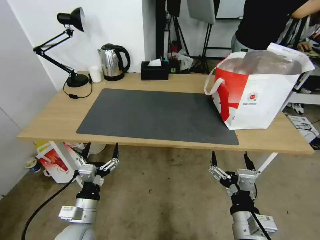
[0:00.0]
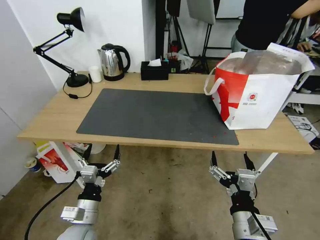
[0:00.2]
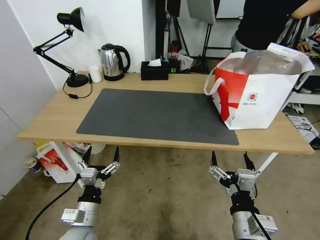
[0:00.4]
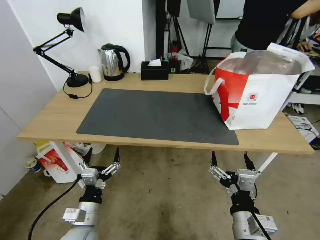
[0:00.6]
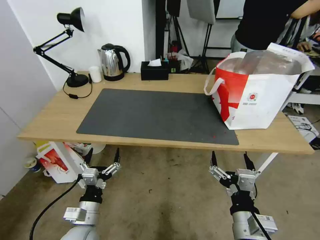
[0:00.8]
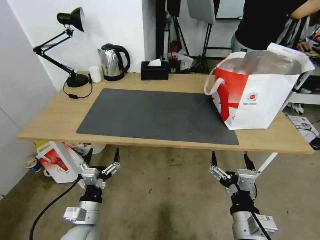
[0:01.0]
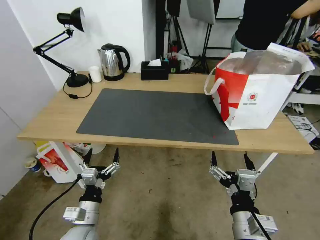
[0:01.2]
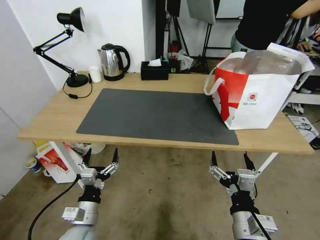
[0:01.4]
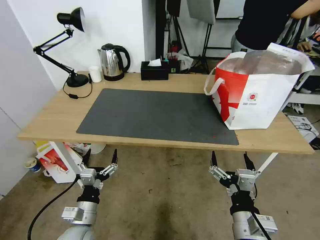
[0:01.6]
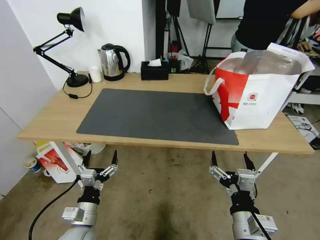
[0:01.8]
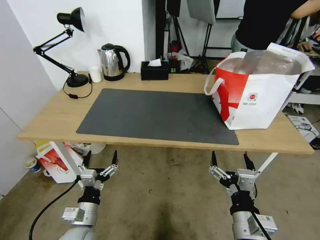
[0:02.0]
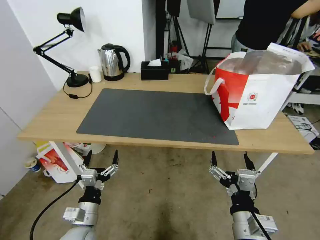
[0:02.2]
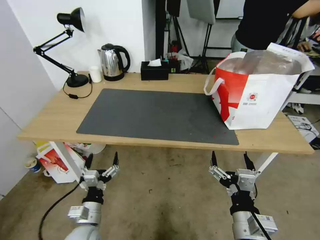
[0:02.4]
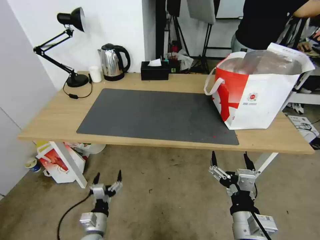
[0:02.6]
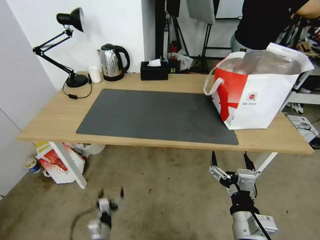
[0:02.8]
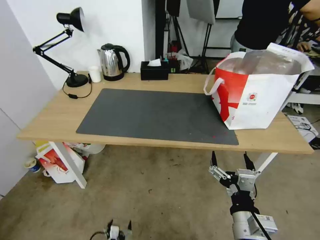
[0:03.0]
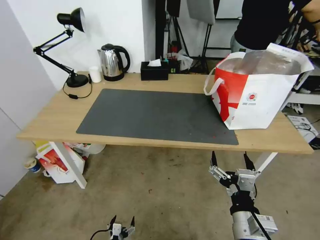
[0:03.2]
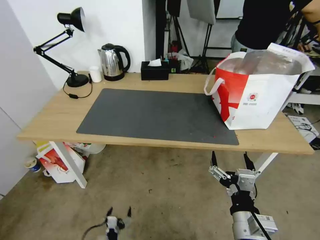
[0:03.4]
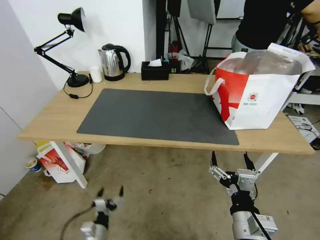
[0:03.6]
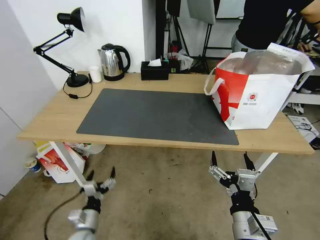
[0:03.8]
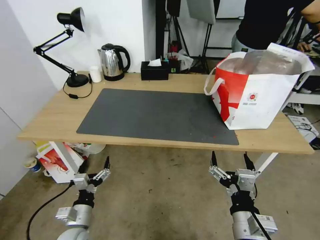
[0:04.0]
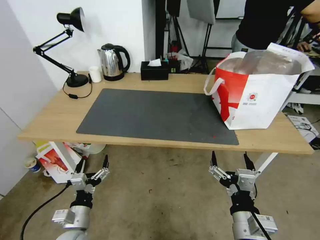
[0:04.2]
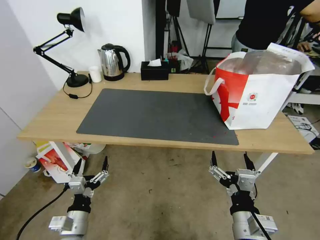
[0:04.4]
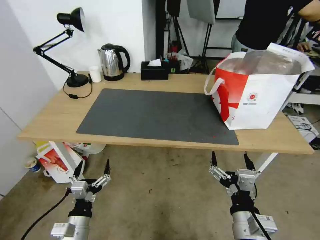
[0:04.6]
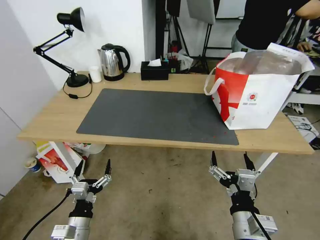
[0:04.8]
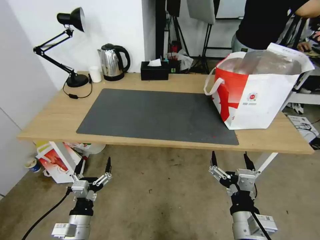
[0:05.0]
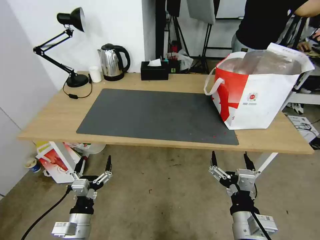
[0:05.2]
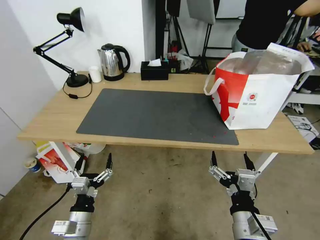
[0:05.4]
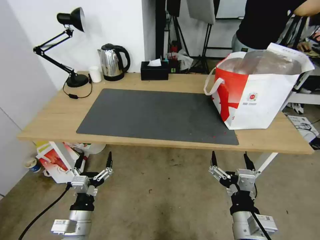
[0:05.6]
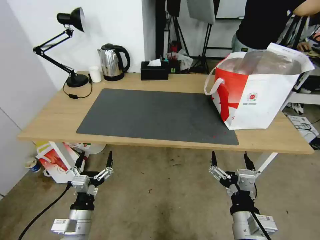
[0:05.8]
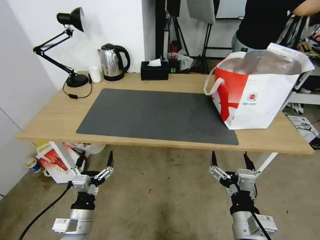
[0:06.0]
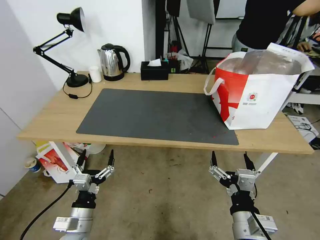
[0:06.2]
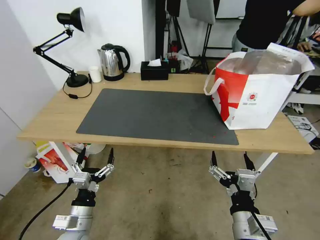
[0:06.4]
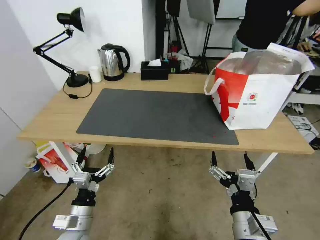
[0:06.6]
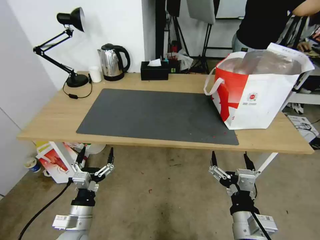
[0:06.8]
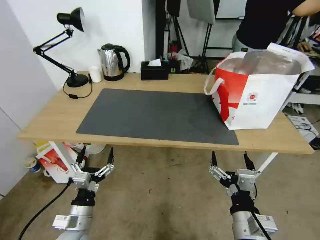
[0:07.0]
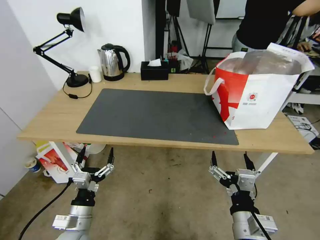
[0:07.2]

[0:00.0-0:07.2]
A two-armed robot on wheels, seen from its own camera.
Task of the whole recording: Pick up the trash from the table and place it into the takeout bag.
0:00.0 to 0:01.4: The grippers move only a little.
0:01.4 to 0:02.8: The left gripper is displaced downward by approximately 20 cm.
0:02.8 to 0:04.4: The left gripper travels upward by approximately 20 cm.
0:04.4 to 0:05.8: The grippers stay close to where they were, moving slightly.
0:05.8 to 0:07.2: The two grippers keep their place.
